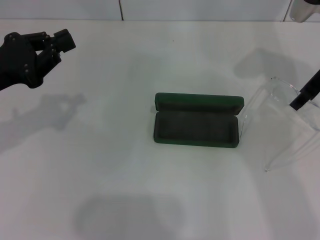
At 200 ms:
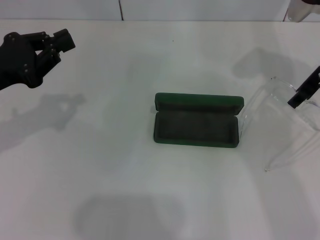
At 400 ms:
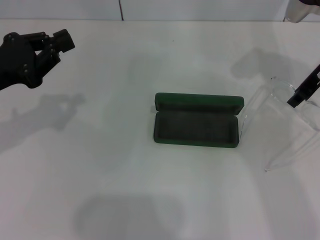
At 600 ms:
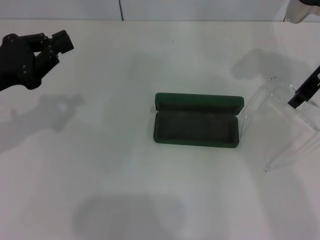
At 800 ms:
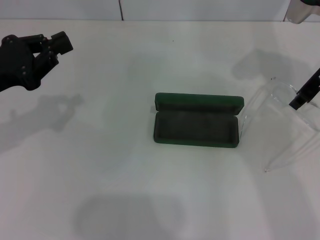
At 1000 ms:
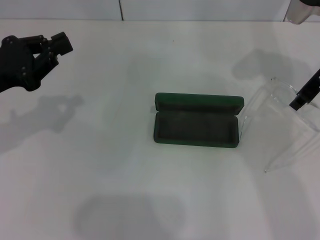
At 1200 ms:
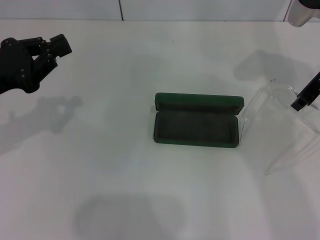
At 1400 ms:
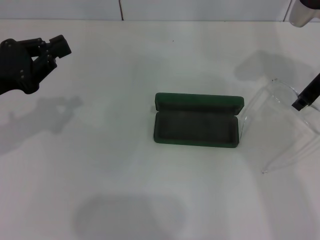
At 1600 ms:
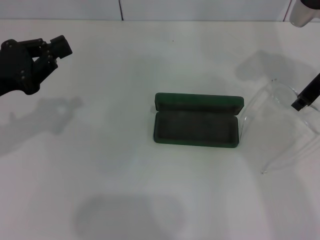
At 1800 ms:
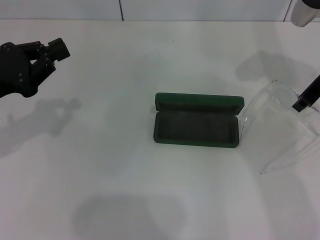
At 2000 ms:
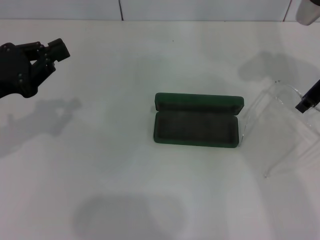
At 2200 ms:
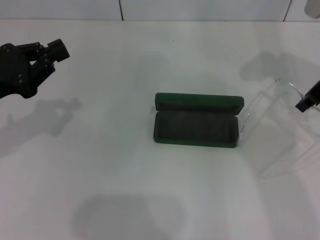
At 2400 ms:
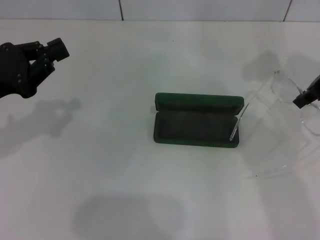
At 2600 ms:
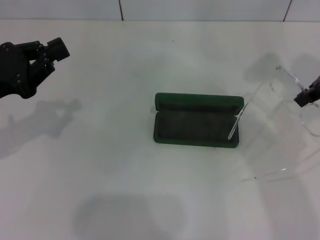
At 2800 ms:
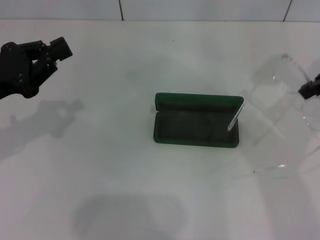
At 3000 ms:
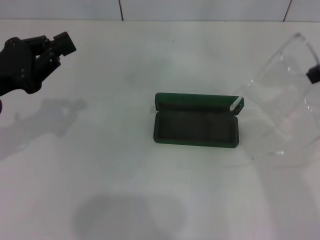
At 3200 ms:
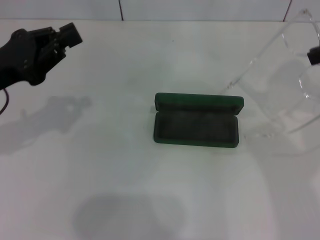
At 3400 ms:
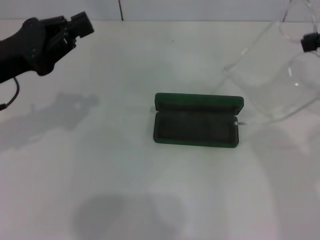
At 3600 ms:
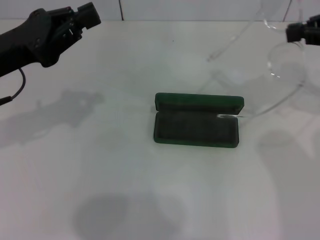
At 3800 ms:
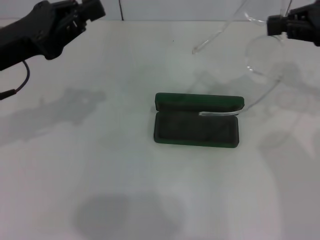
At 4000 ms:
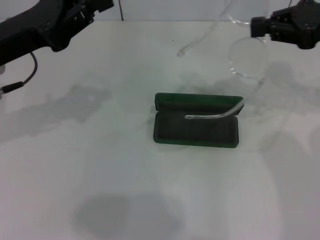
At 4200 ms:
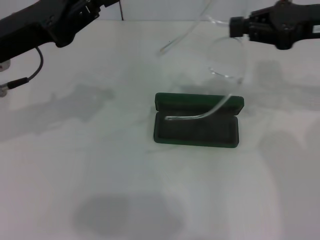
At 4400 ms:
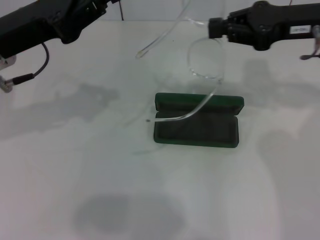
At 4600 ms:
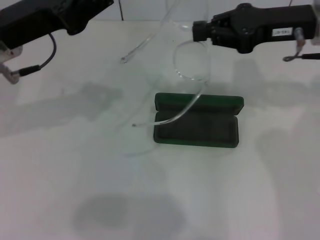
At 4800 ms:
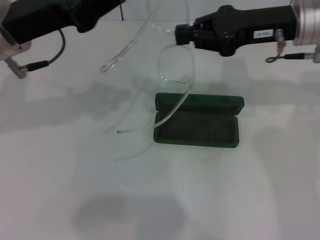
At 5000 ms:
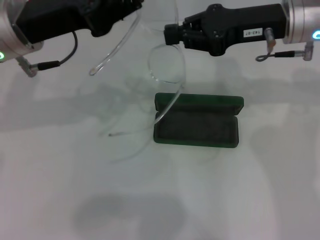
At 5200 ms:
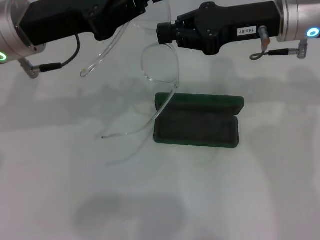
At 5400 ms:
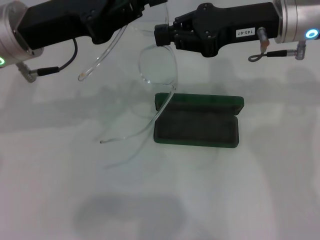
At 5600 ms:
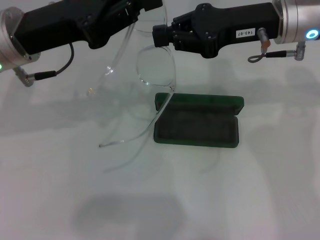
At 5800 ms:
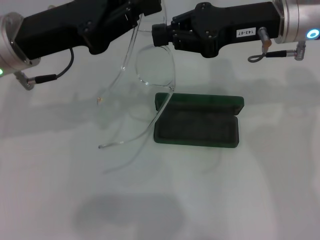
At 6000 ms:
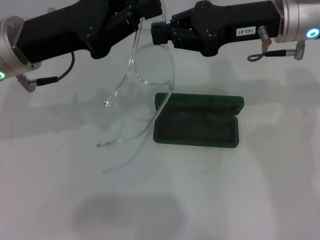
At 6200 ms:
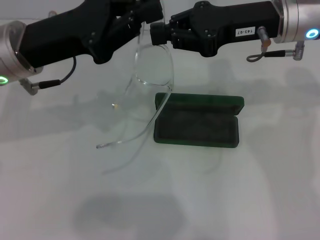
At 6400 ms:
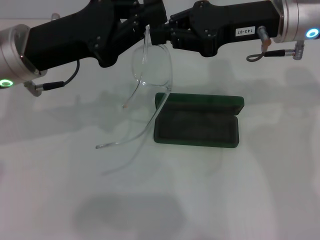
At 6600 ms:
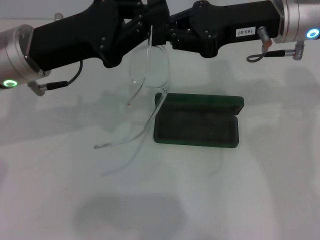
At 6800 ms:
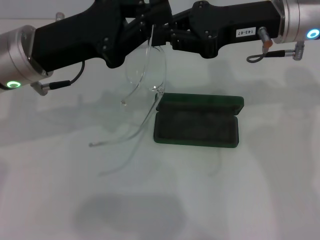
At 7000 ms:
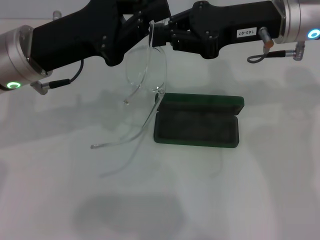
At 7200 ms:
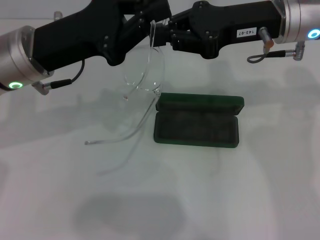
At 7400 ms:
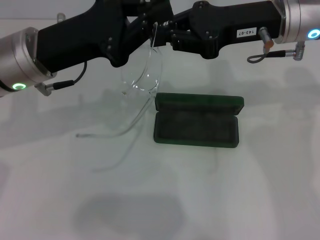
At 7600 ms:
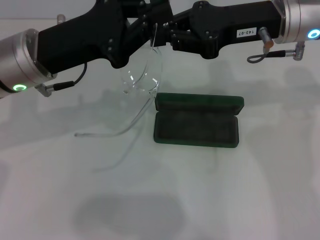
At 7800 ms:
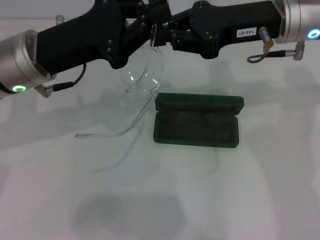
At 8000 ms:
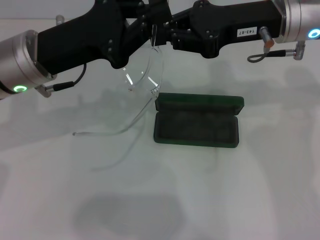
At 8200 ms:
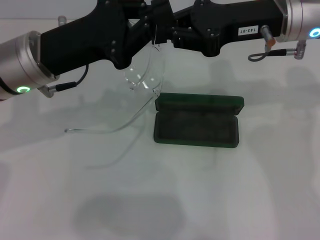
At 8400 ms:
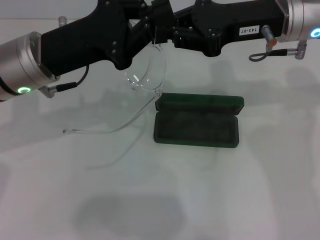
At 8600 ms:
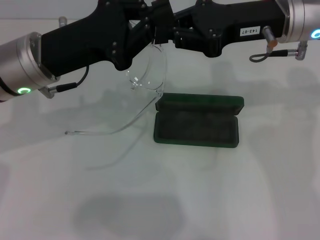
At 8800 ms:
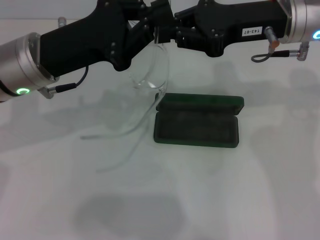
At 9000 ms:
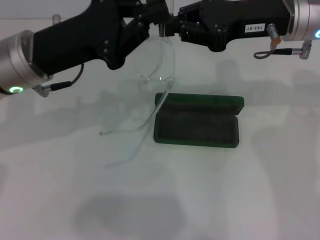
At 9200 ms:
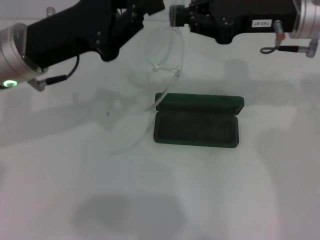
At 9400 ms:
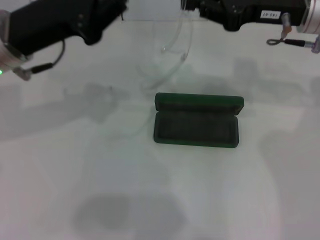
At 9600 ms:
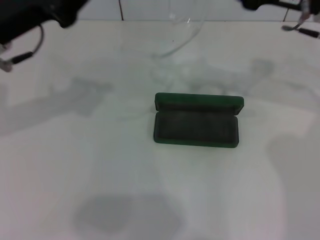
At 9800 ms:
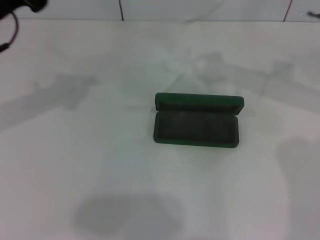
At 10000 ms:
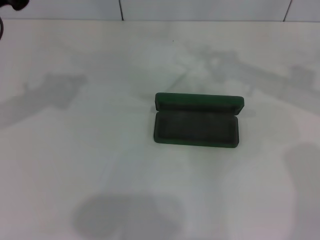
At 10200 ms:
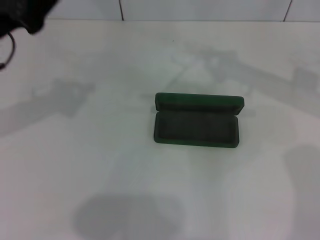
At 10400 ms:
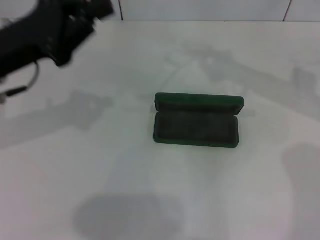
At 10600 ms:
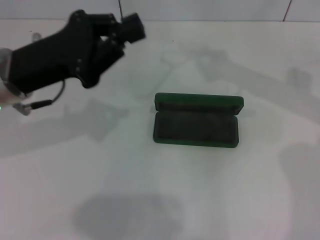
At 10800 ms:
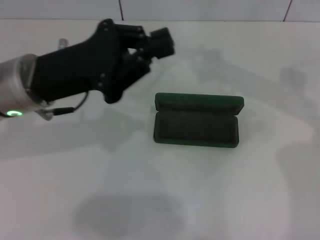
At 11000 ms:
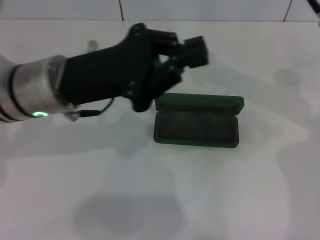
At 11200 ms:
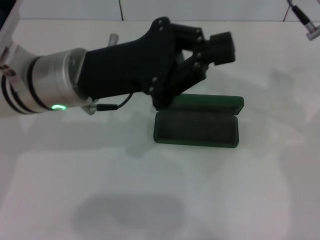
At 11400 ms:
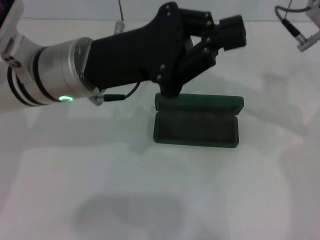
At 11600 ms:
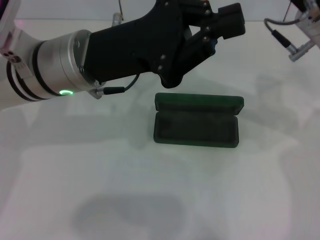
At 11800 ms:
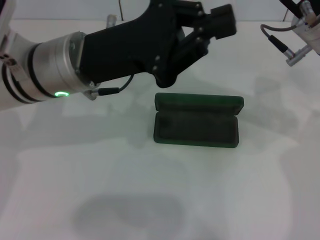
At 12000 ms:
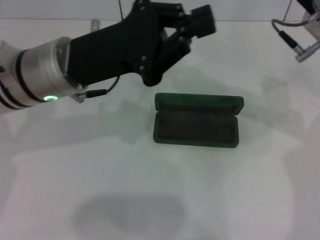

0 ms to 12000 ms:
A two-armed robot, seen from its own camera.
0 ms to 1600 ms: The right gripper closes its fingers.
1600 ms to 3000 ms: The right gripper travels upward, backward and to the right by about 15 cm.
3000 ms to 4400 ms: The left gripper goes some 5 cm to the right. Meanwhile the right gripper moves to the left, some 10 cm.
4400 ms to 6000 ms: The right gripper heads to the left, covering about 5 cm.
6000 ms to 7600 ms: The grippers move only a little.
7600 ms to 9000 ms: Both grippers stay put.
9000 ms to 10400 ms: The right gripper shifts roughly 10 cm to the right. The left gripper travels to the left by approximately 5 cm.
10400 ms to 12000 ms: The right gripper goes some 5 cm to the left. Meanwhile the left gripper travels to the right by some 10 cm.

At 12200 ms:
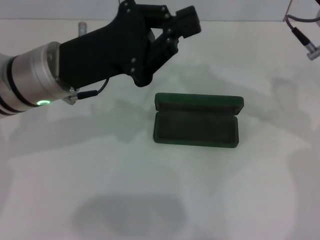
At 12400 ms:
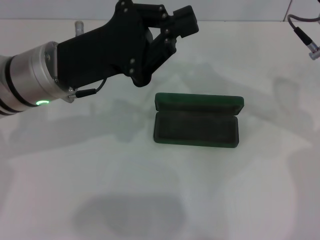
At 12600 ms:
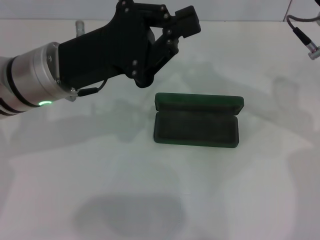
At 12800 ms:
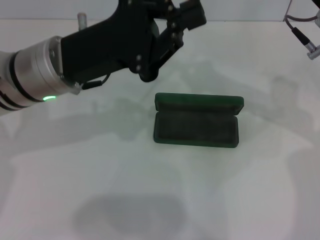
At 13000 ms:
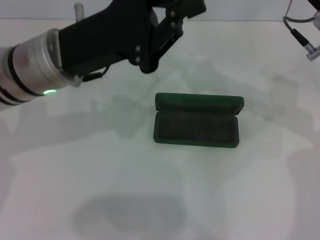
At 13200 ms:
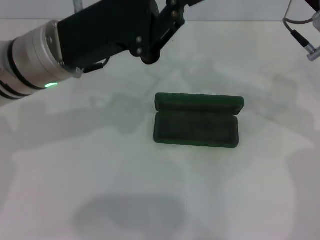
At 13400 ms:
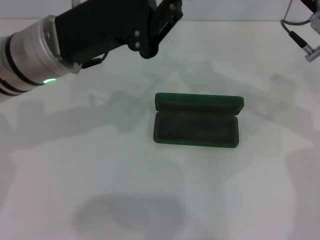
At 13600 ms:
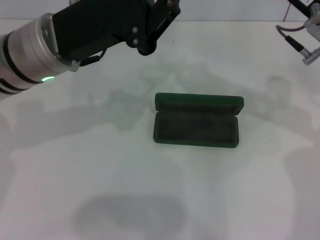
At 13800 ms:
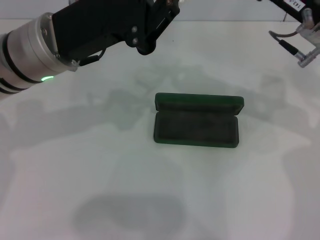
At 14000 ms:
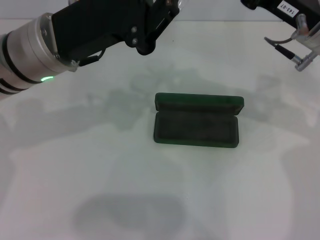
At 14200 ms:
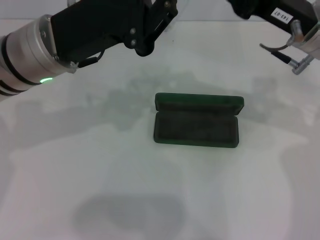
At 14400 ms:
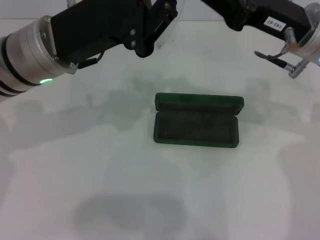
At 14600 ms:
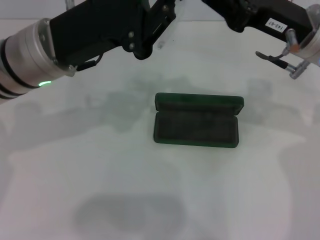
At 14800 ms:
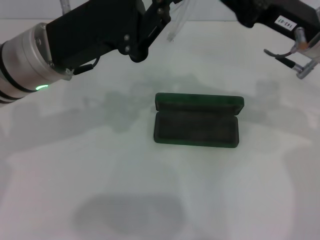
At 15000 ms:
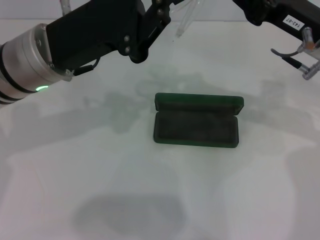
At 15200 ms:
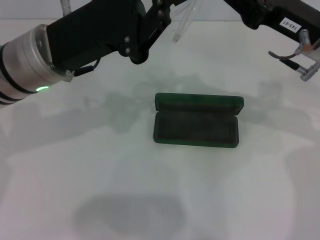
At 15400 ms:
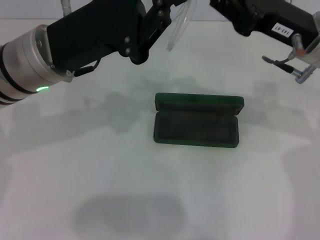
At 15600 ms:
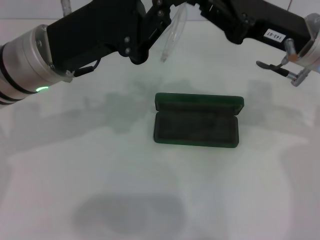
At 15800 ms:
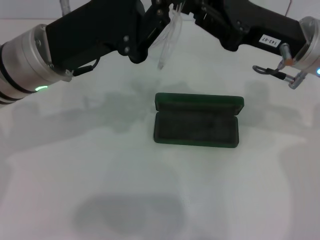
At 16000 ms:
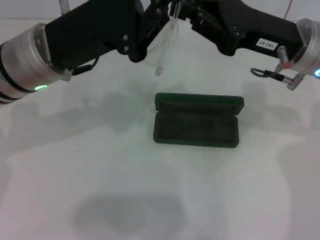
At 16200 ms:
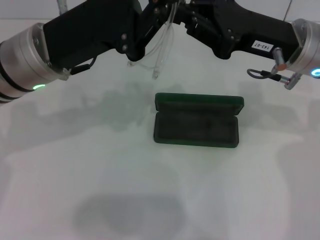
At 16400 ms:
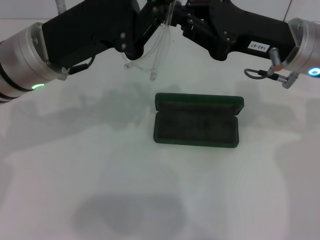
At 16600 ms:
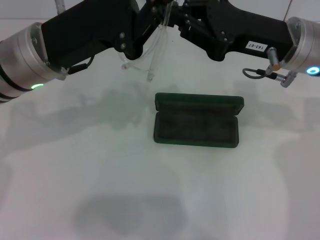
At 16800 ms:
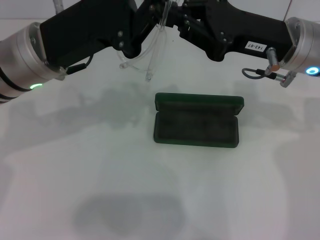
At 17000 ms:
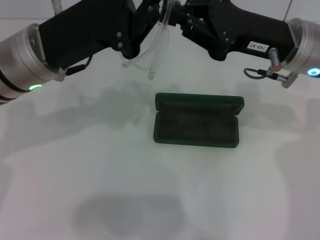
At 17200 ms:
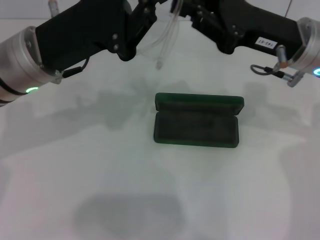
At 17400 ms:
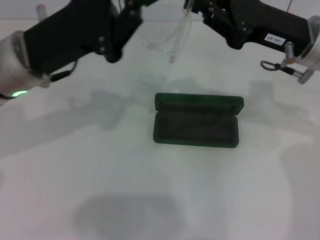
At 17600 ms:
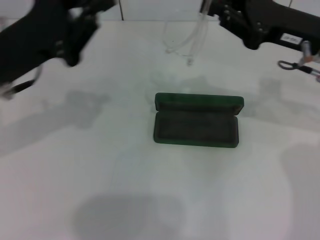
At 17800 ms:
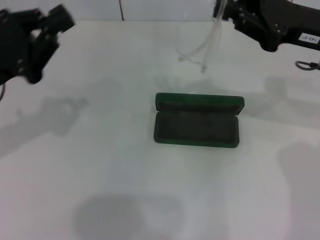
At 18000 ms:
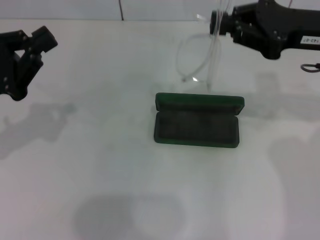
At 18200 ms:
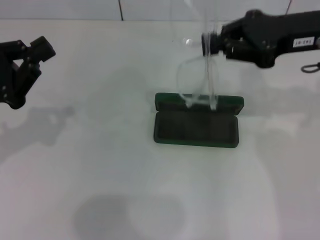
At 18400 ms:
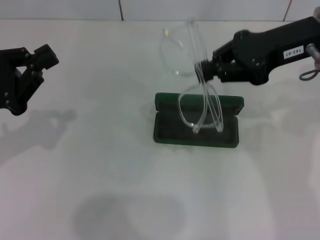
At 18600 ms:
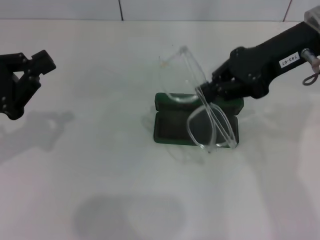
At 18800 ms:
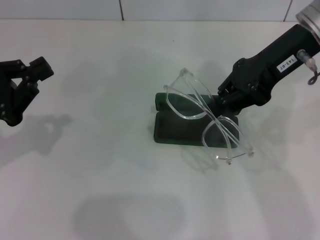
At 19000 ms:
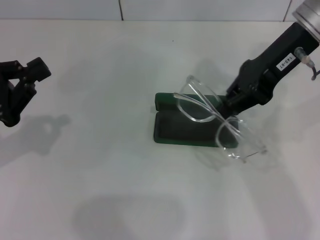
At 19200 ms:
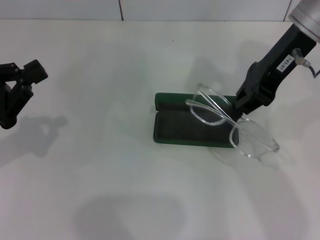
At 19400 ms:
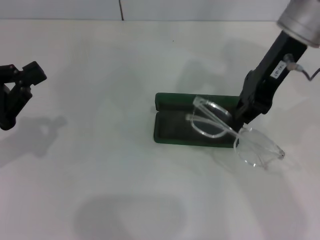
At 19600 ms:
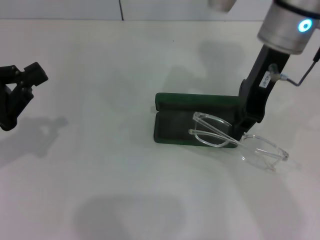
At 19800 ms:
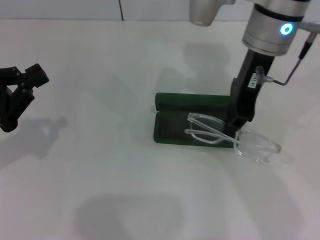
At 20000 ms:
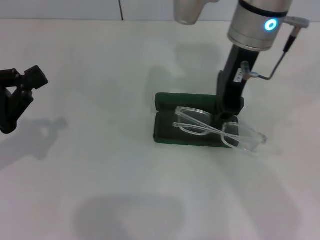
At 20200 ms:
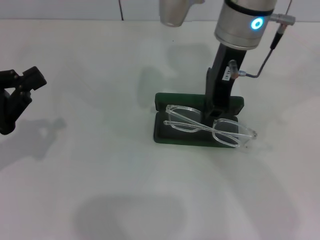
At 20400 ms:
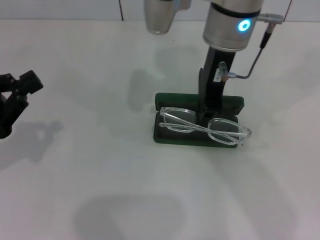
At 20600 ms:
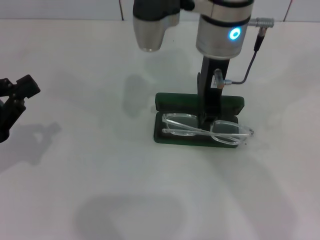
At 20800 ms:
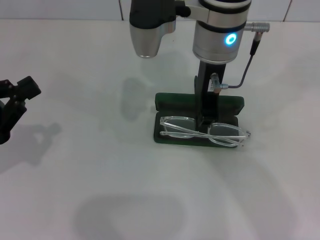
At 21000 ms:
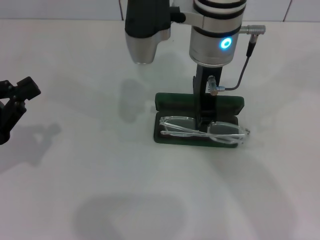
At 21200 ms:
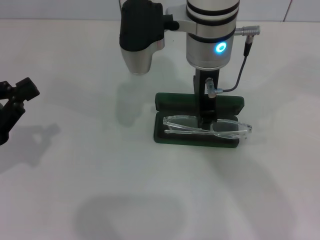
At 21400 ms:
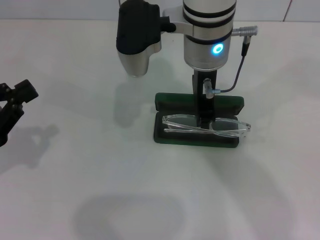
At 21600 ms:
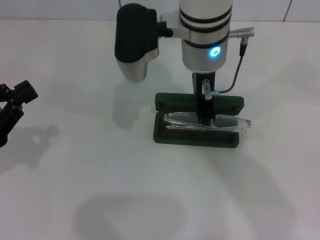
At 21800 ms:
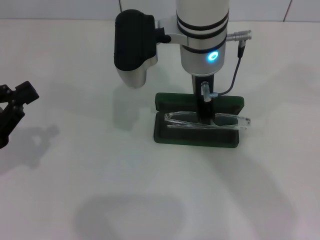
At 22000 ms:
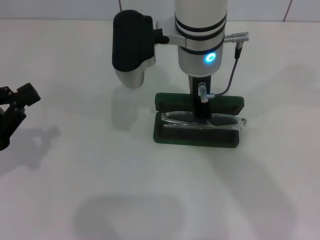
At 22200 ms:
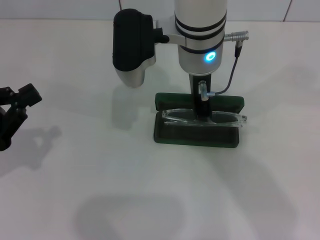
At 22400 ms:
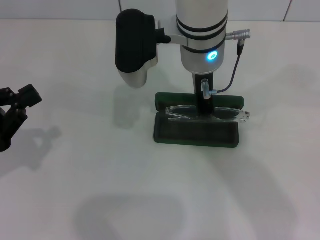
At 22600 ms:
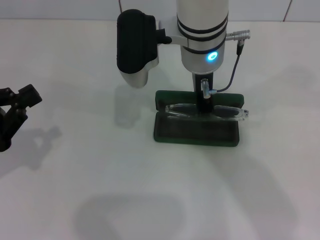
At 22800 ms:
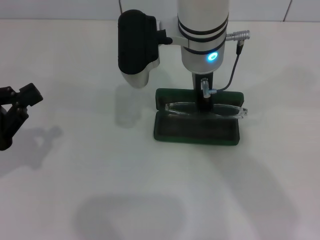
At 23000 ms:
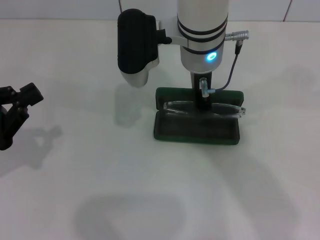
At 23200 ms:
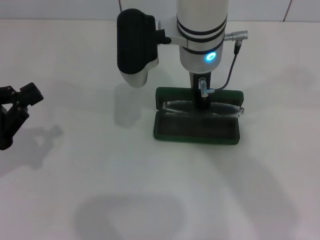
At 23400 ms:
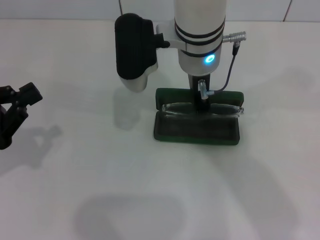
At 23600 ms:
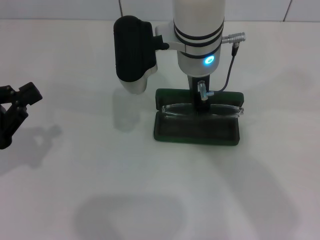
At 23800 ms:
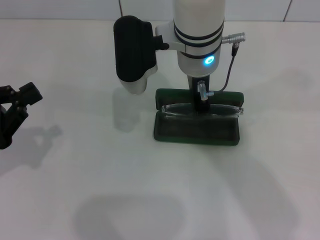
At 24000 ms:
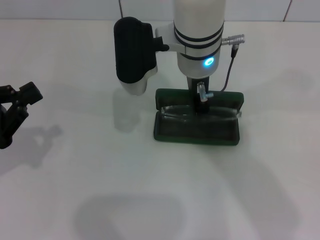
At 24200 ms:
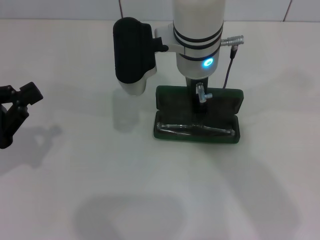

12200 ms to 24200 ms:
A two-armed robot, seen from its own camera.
Step, 12200 ms to 16800 ms: Fold the frame with your left hand.
Step, 17000 ms to 24200 ms: Put the glasses into the case with your right hand.
12200 ms to 15200 ms: There are only small adjustments of the grippers.
15200 ms to 16600 ms: There are only small adjustments of the grippers.
16600 ms to 18200 ms: The left gripper shifts about 15 cm to the left and backward. Meanwhile the right gripper is displaced to the right by some 5 cm.
18200 ms to 19800 ms: The right gripper moves to the left, some 15 cm.
19800 ms to 21200 ms: The right gripper shifts some 10 cm to the left.
21200 ms to 22600 ms: The grippers make only small movements.
22600 ms to 24200 ms: The two grippers keep their place.
